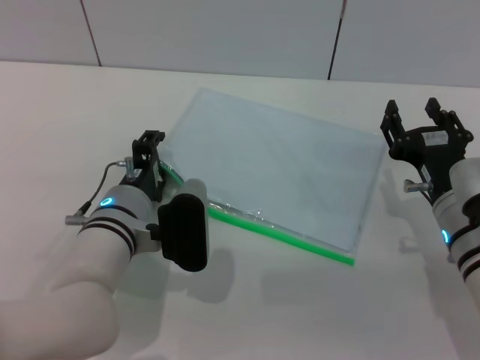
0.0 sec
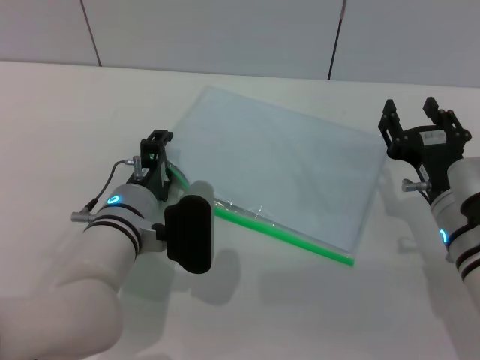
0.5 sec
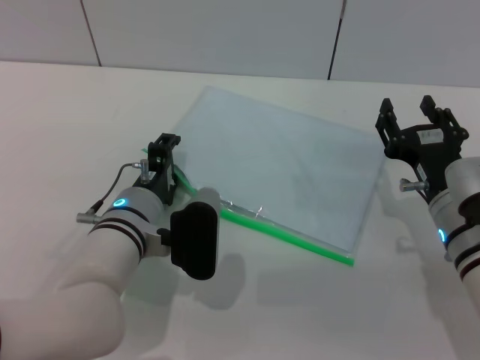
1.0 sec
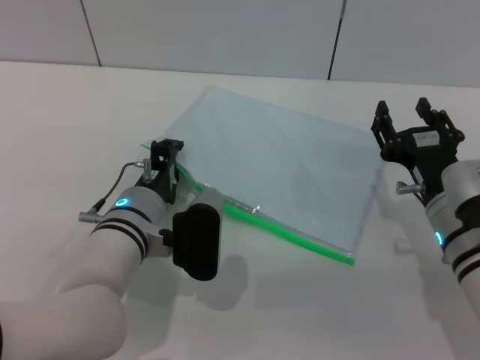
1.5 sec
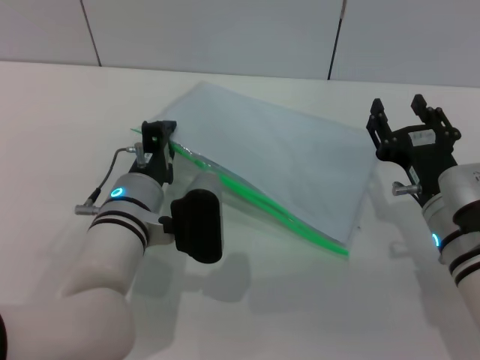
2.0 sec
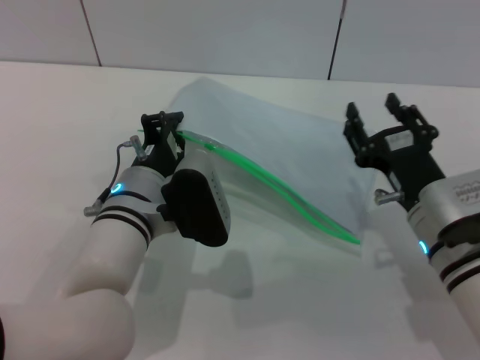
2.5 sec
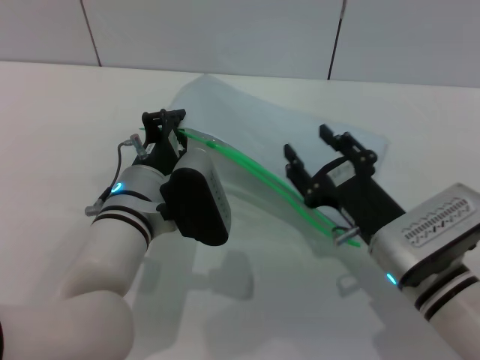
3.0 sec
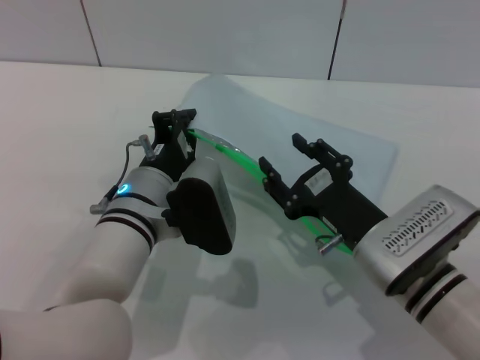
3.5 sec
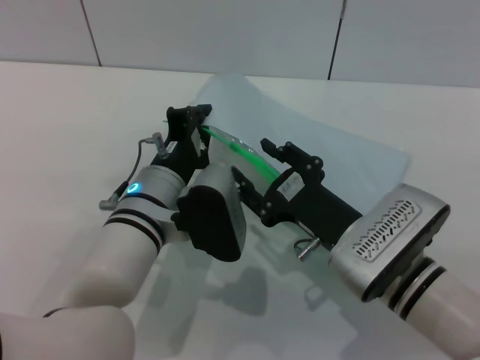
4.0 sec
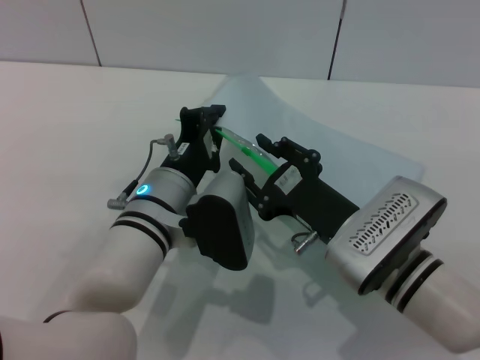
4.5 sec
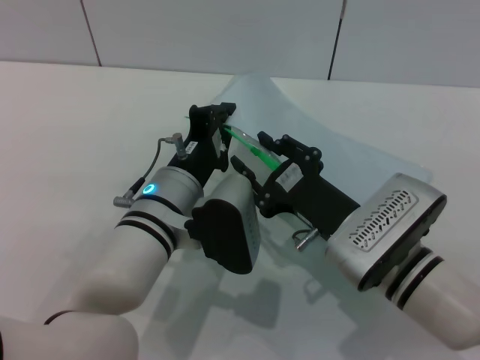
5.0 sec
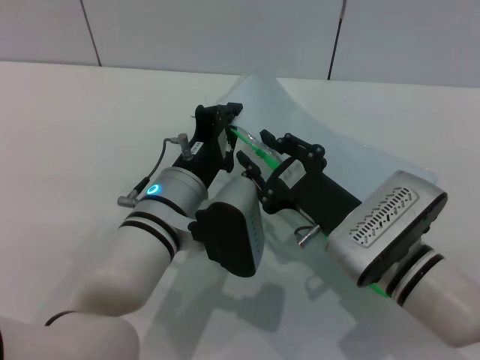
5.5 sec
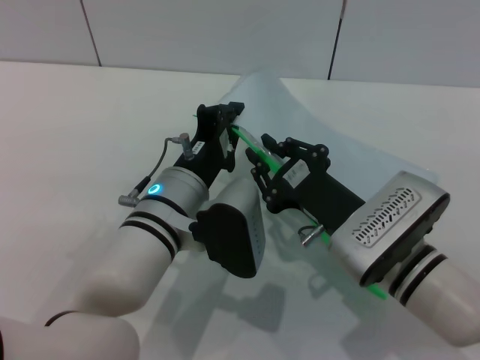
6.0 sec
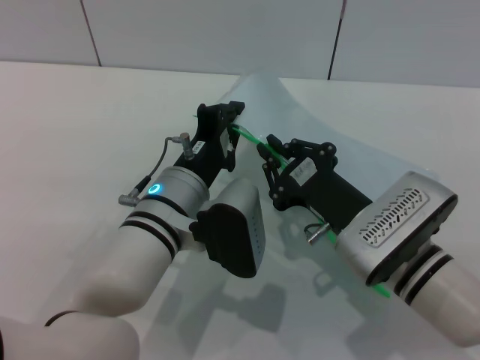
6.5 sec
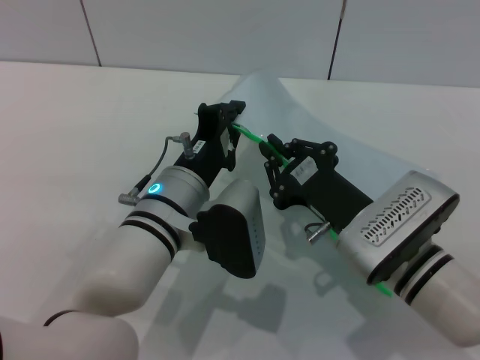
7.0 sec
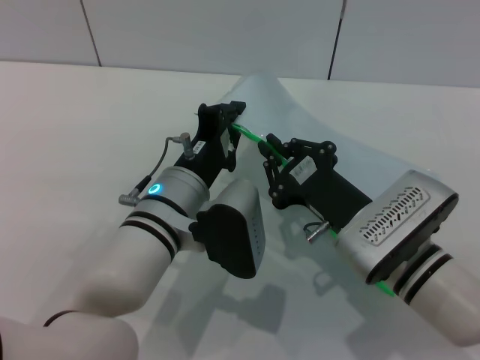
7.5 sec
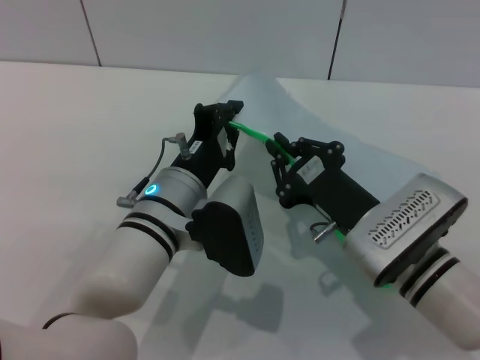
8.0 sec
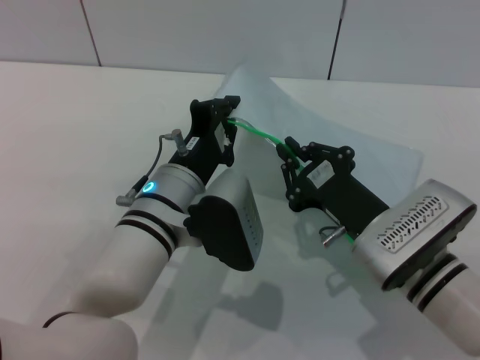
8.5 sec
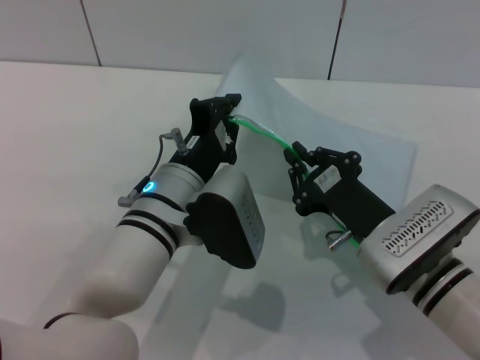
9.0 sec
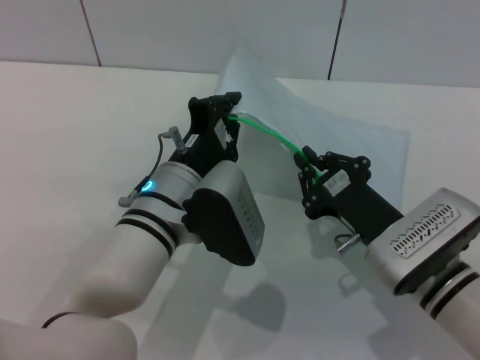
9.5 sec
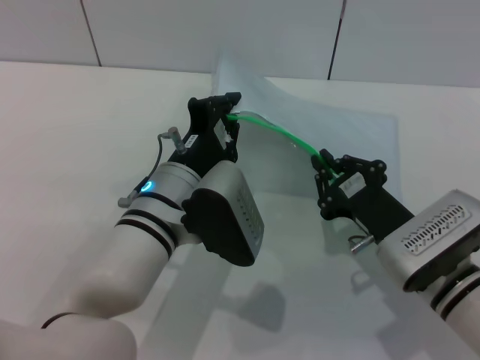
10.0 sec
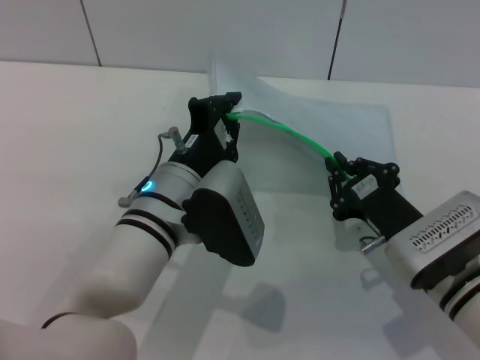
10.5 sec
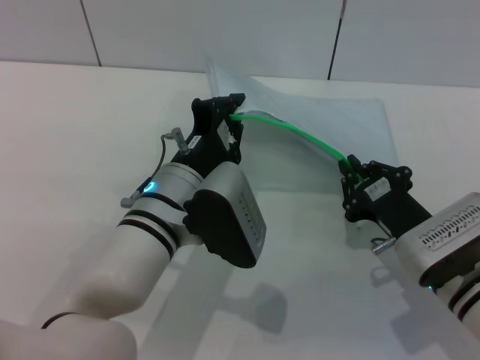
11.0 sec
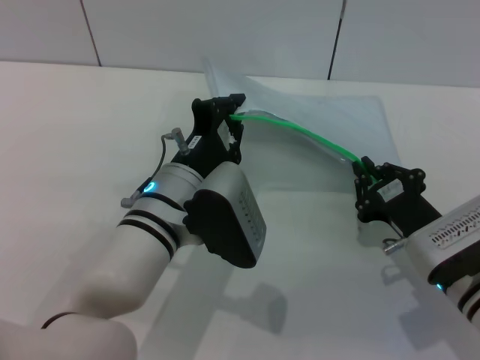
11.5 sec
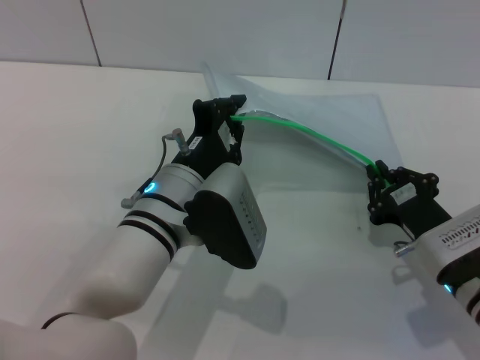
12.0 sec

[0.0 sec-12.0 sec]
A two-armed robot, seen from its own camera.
Step, 0.0 sec to 2.0 sec: Pick up the transparent plastic bag with the left gripper.
0.0 sec to 2.0 sec: The left gripper closes.
2.0 sec to 4.0 sec: The right gripper shifts some 5 cm to the left.
4.0 sec to 6.0 sec: The right gripper closes.
6.0 sec to 8.0 sec: Both grippers stay put.
8.0 sec to 10.0 sec: The grippers stay close to where they were, moving slightly.
10.0 sec to 12.0 sec: The grippers make only small movements.

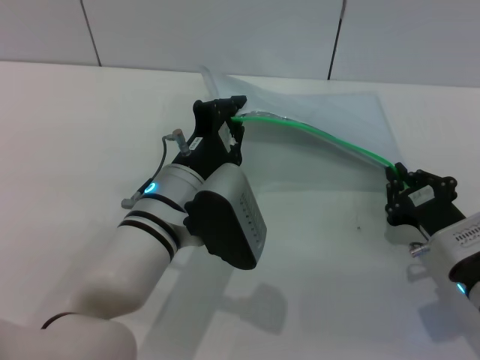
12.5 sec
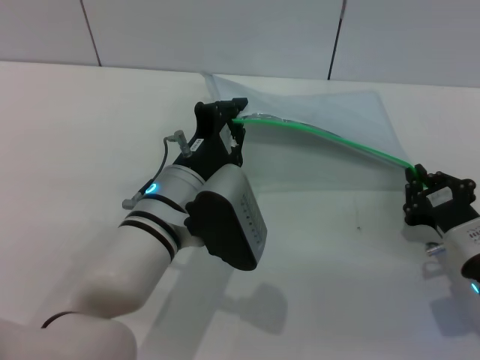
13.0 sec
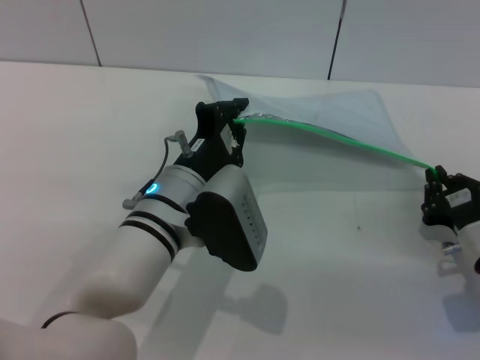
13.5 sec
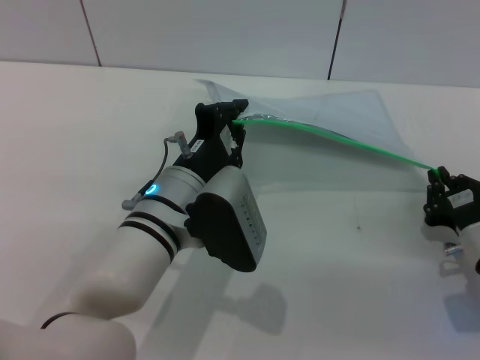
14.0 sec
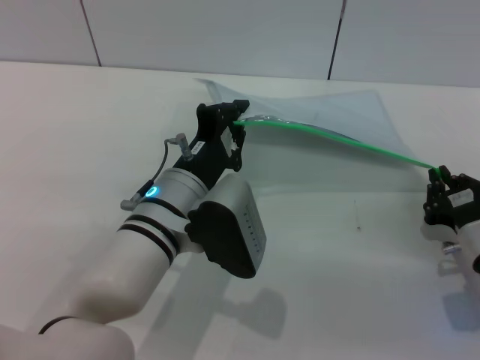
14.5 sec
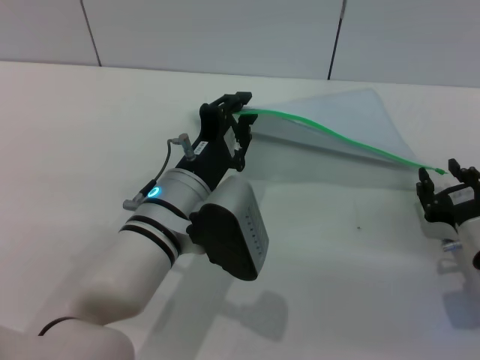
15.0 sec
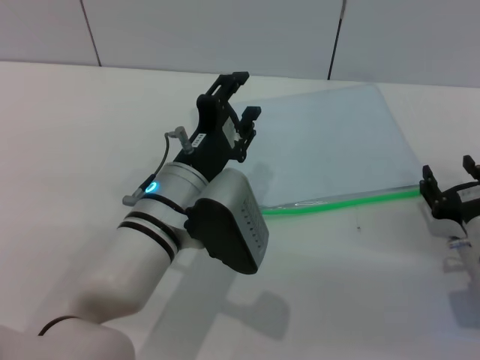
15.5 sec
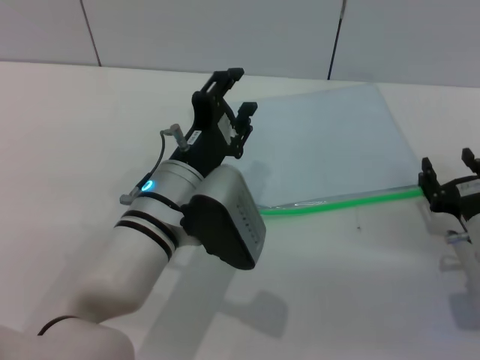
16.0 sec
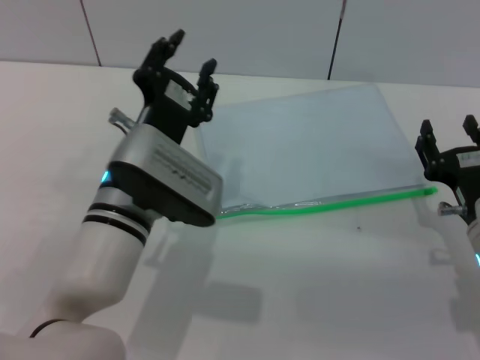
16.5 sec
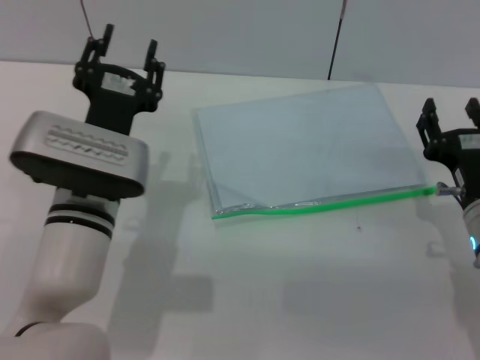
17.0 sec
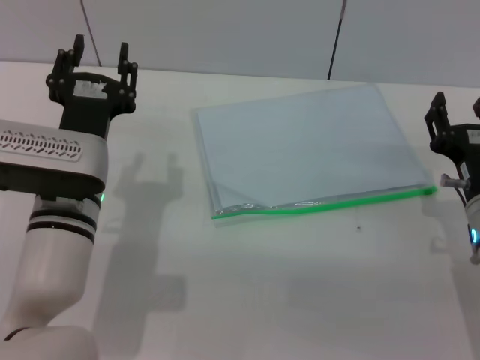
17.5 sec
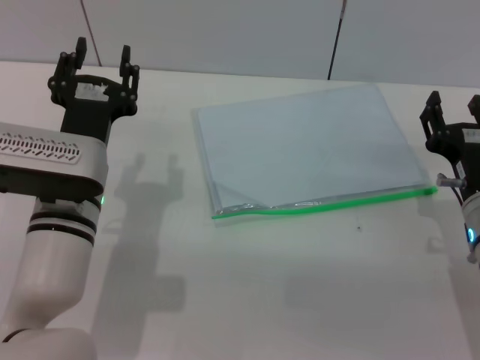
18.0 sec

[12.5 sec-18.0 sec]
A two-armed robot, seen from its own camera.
Step, 12.5 sec to 15.0 sec: Pulling up the zipper on the transparent plastic bag with the right gripper to close it.
Step, 15.5 sec to 16.0 sec: Place the transparent plastic bag.
12.5 sec to 14.5 sec: The grippers move only a little.
14.5 sec to 16.0 sec: The left gripper opens its fingers. Meanwhile the right gripper opens up.
16.0 sec to 18.0 sec: The left gripper travels to the left by some 10 cm. The right gripper changes place by roughly 5 cm.

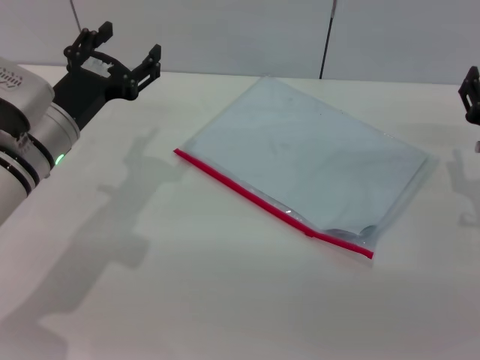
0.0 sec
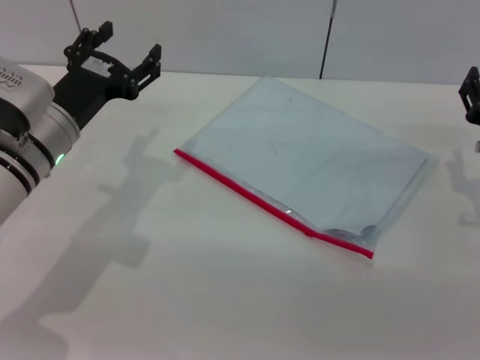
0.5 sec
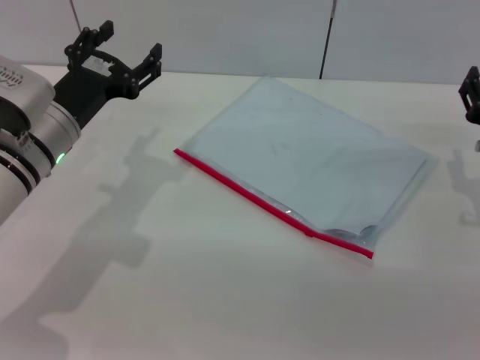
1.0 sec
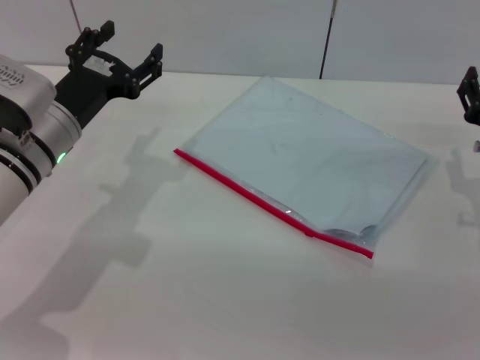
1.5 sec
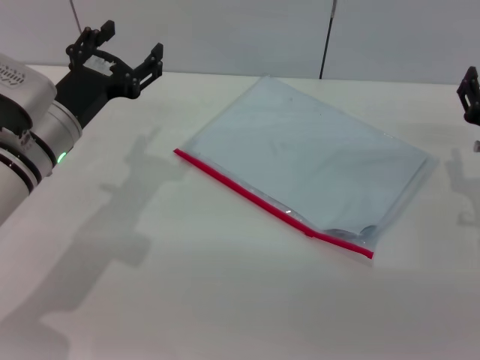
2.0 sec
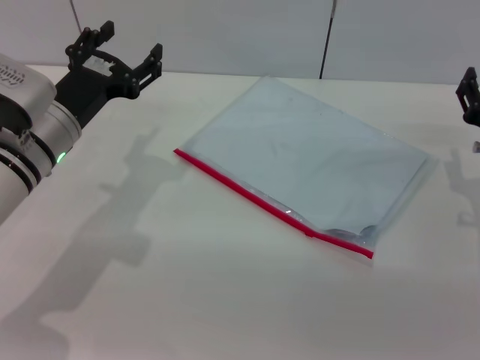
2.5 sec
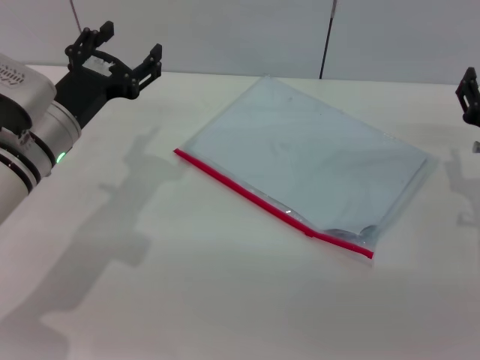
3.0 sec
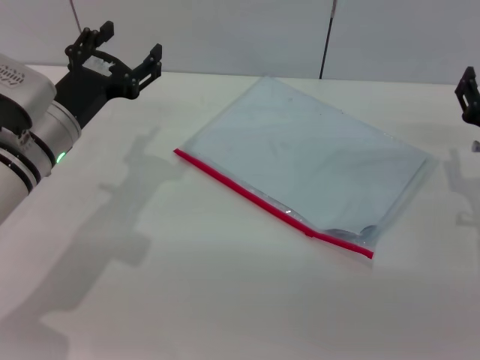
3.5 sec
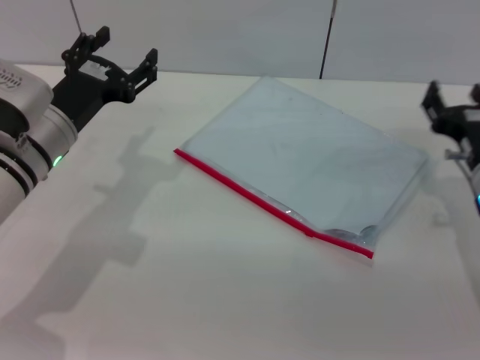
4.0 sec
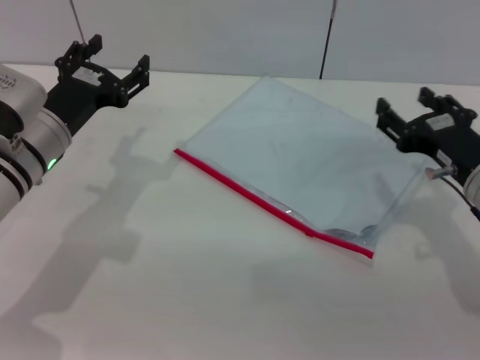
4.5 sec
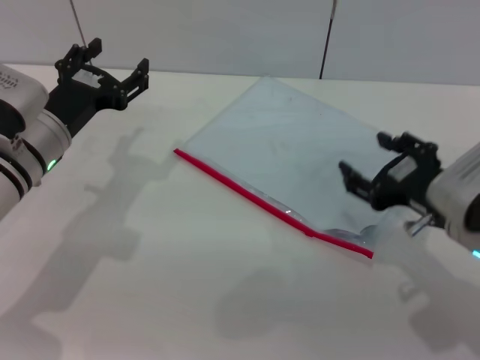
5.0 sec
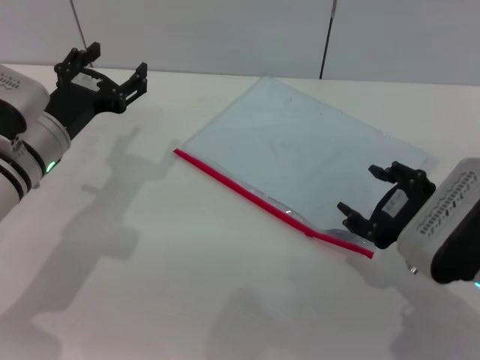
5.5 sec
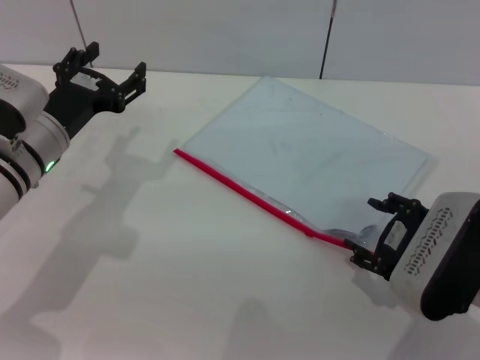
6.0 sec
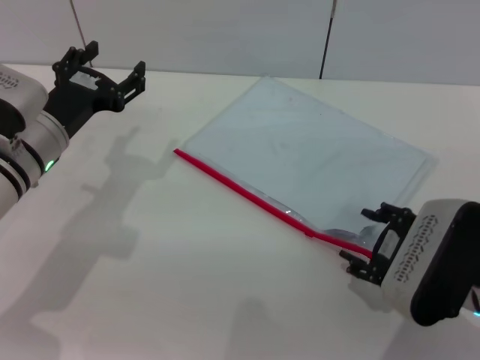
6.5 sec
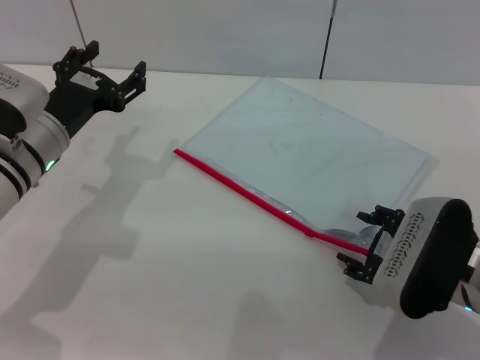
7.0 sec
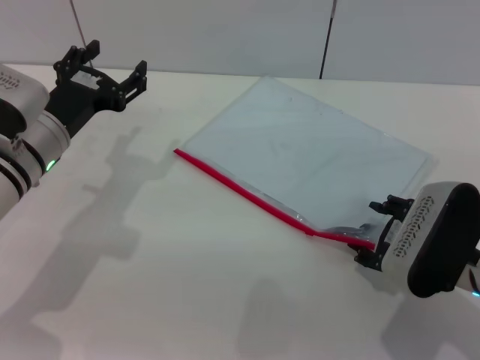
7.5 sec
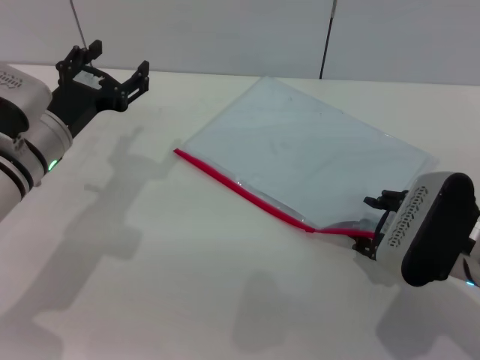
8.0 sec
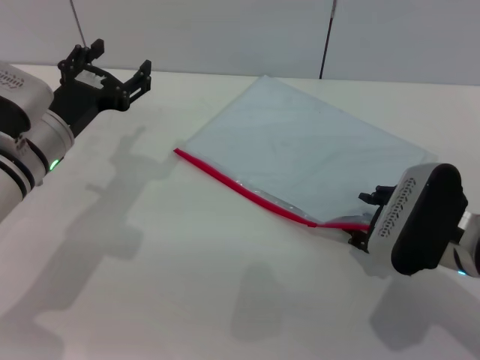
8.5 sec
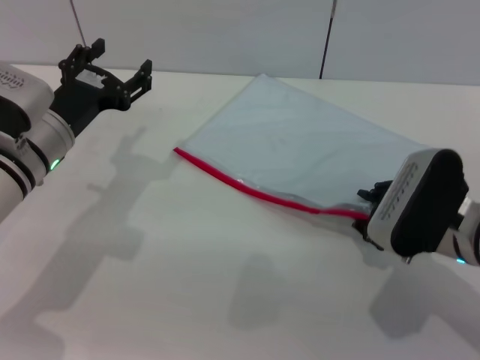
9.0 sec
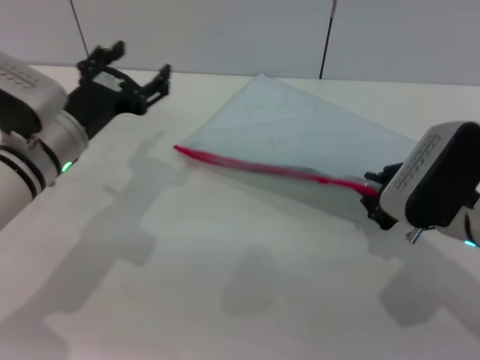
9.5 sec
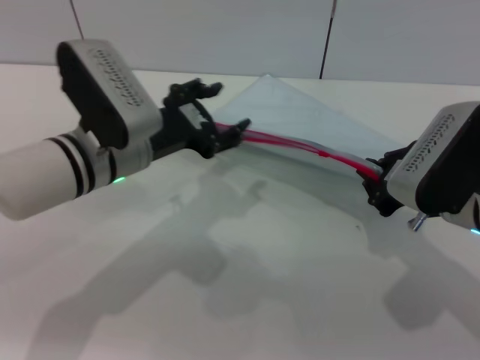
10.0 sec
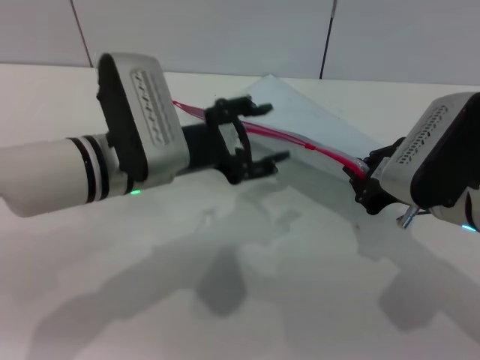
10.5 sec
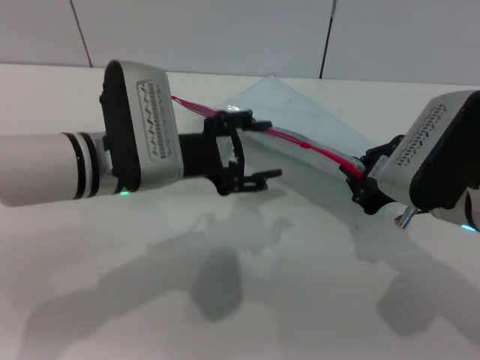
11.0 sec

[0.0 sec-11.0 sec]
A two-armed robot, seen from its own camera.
Step, 0.0 sec to 9.0 sec: Pick up the transparent plastic bag with the right gripper.
0.0 sec to 3.5 sec: Both grippers stay put.
3.5 sec to 5.5 sec: The right gripper travels backward and to the left by some 10 cm.
5.5 sec to 9.0 sec: There are only small adjustments of the grippers.
9.0 sec to 11.0 sec: The right gripper heads upward, covering about 5 cm, and closes its fingers. The left gripper travels to the right by about 10 cm.
